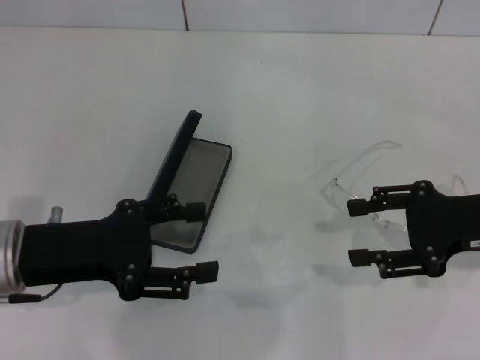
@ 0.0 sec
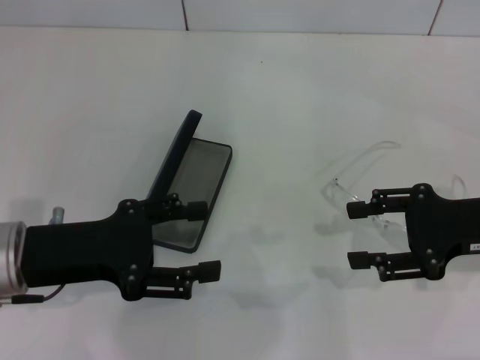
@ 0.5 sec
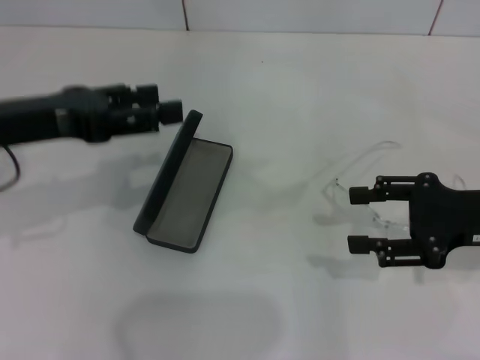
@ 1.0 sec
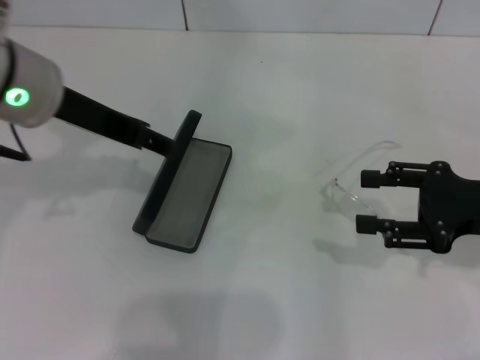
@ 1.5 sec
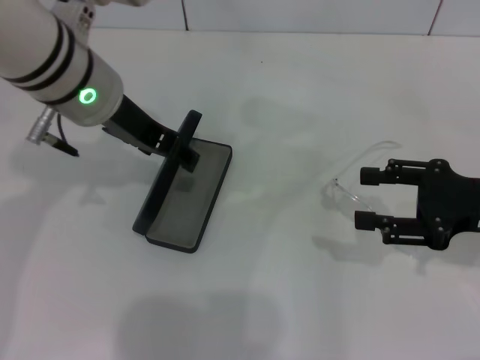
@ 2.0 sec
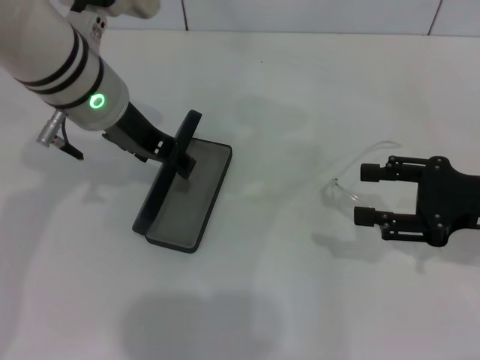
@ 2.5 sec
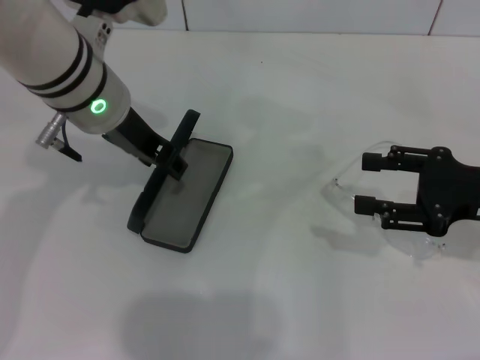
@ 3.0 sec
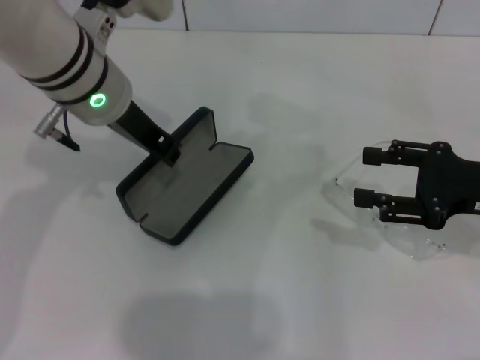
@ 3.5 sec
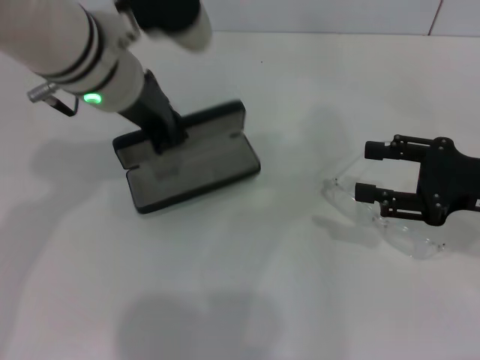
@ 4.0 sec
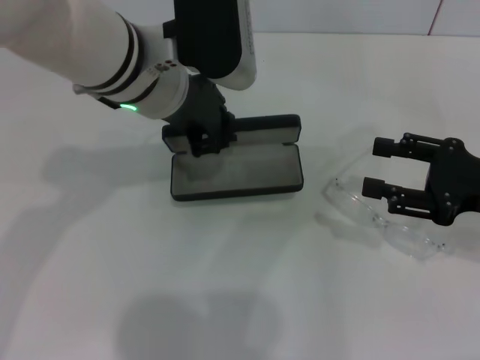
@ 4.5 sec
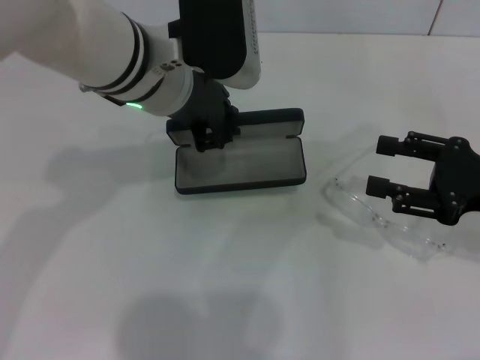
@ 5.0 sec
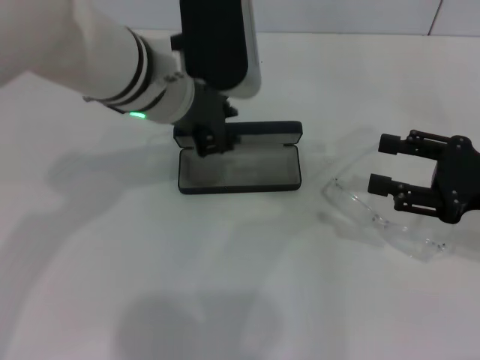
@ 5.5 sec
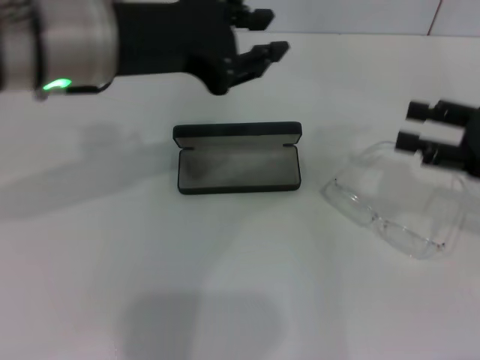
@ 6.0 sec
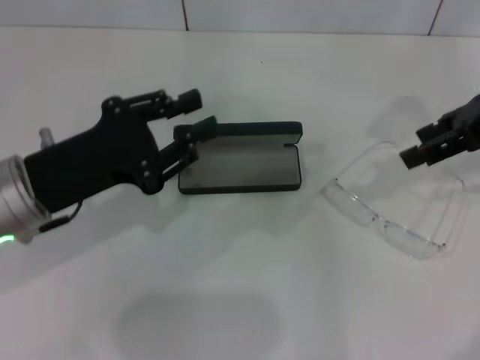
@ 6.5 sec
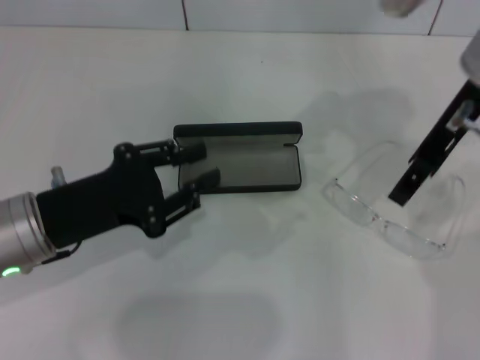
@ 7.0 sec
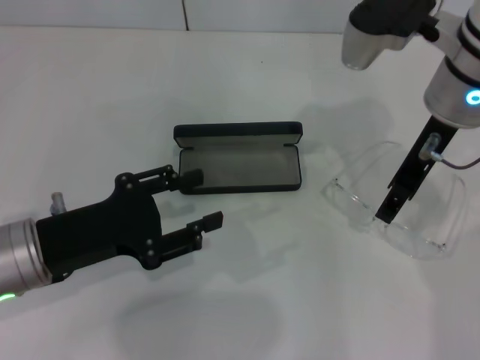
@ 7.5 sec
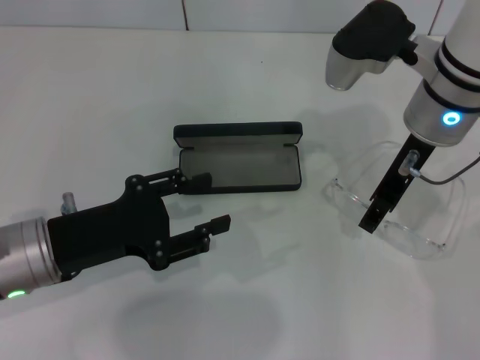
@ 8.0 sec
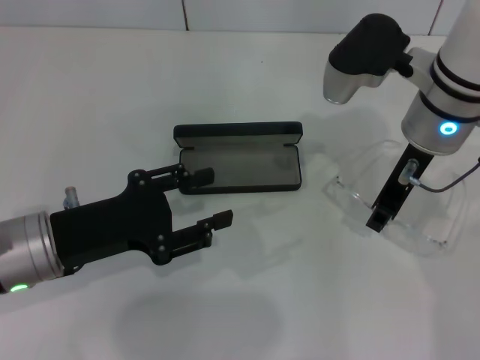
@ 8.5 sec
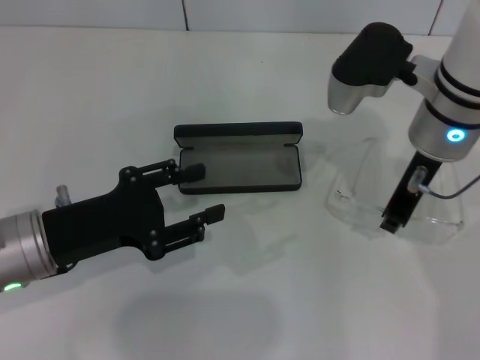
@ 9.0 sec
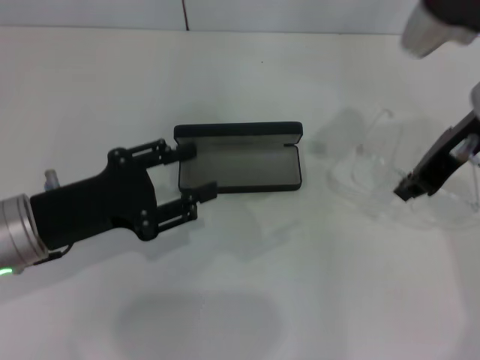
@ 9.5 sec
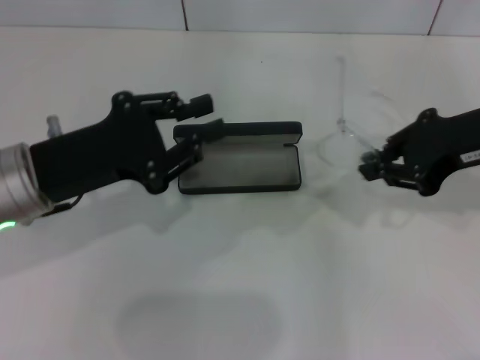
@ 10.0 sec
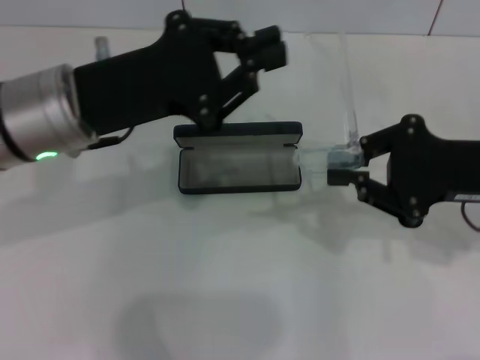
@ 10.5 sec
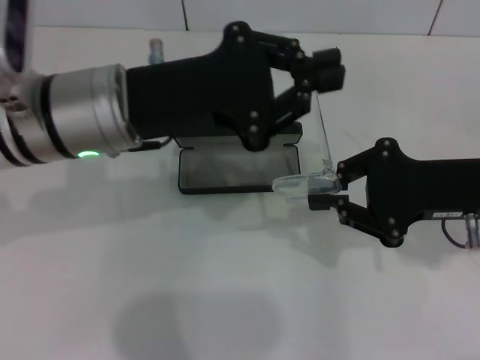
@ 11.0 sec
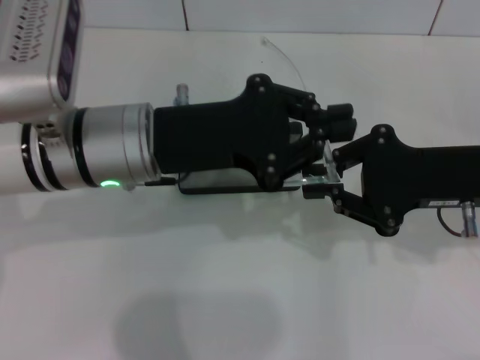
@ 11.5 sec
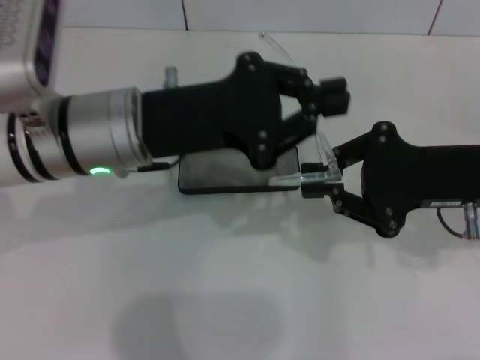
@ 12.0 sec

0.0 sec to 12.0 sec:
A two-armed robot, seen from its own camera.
Step, 0.0 sec to 3.0 sec: Grab the glasses case with your left hand.
Step, 3.5 sec to 5.0 sec: Place the glasses case in the center of the table with your left hand.
Step, 6.0 sec to 8.5 sec: Grab the eyeglass frame with your right hand.
0.0 sec to 2.0 sec: The left gripper shifts approximately 20 cm forward, to the right and upward.
2.0 sec to 4.0 sec: The left gripper closes.
4.0 sec to 6.0 sec: The left gripper moves some 5 cm.
6.0 sec to 8.0 sec: The right gripper goes some 20 cm to the left and forward. Meanwhile the left gripper moves downward, backward and to the left, roughly 20 cm.
8.0 sec to 10.0 sec: The right gripper moves to the right and backward, approximately 10 cm, and closes up. Meanwhile the left gripper changes place by about 5 cm.
10.0 sec to 12.0 sec: The right gripper goes roughly 5 cm downward. Meanwhile the left gripper is displaced to the right by about 10 cm, and closes its fingers.

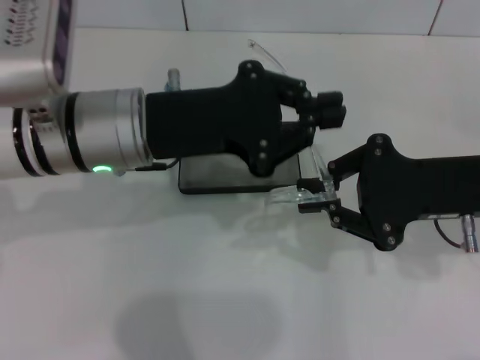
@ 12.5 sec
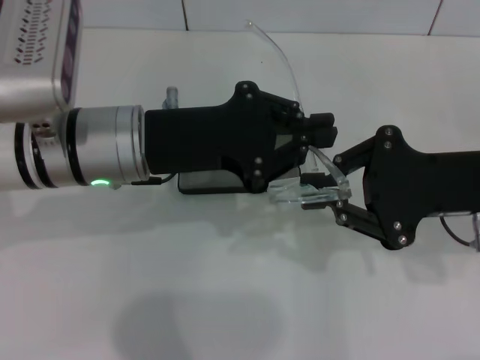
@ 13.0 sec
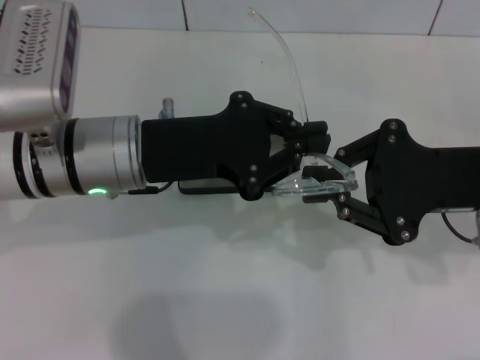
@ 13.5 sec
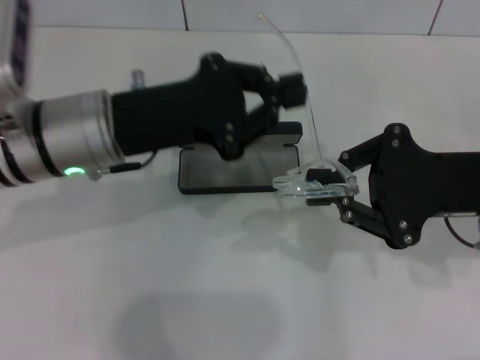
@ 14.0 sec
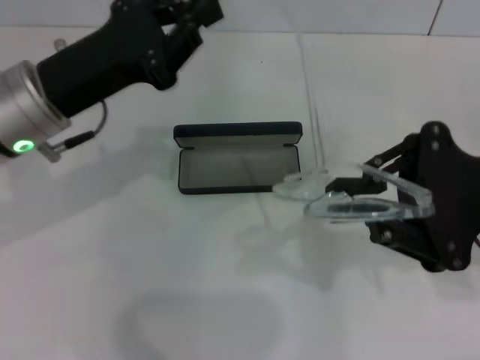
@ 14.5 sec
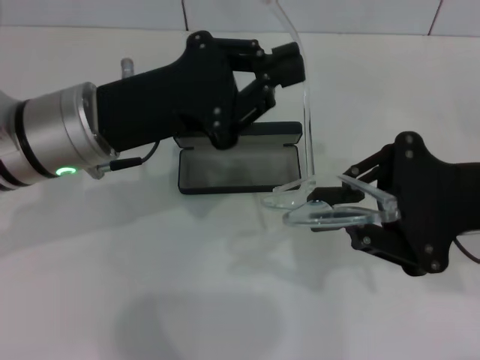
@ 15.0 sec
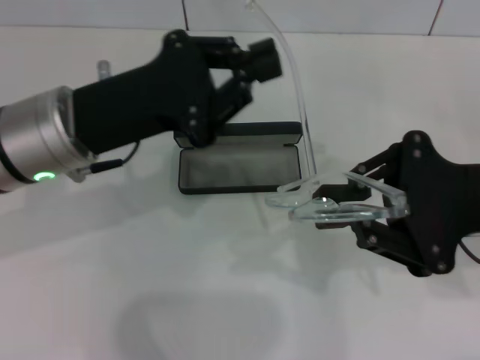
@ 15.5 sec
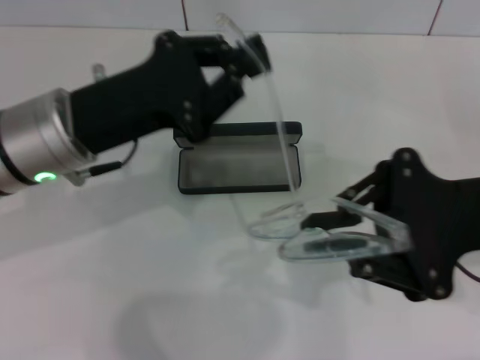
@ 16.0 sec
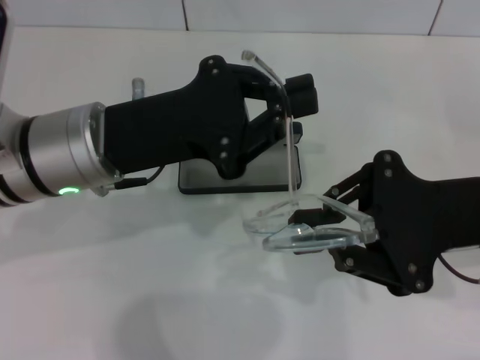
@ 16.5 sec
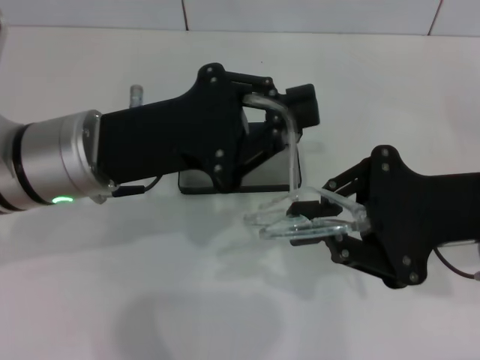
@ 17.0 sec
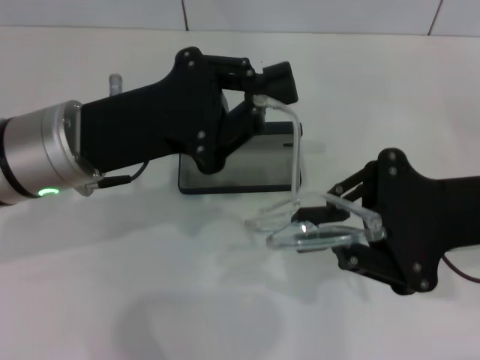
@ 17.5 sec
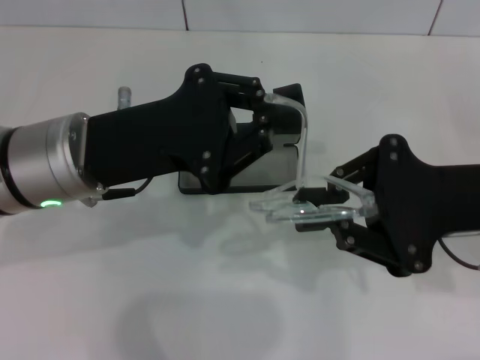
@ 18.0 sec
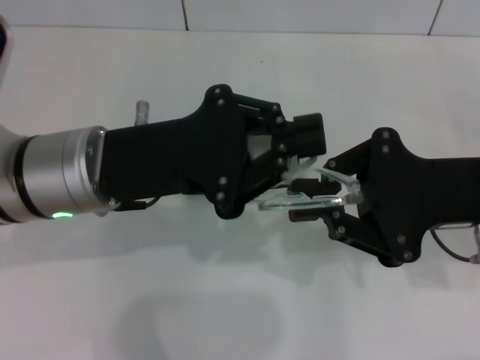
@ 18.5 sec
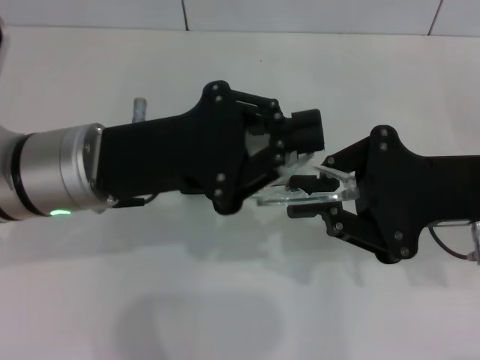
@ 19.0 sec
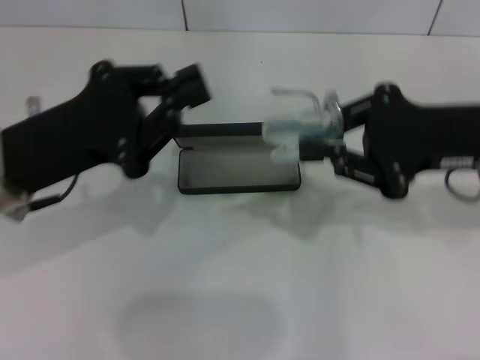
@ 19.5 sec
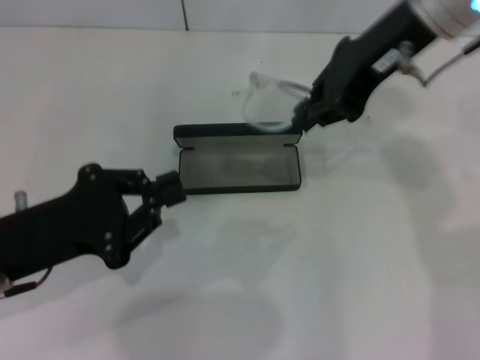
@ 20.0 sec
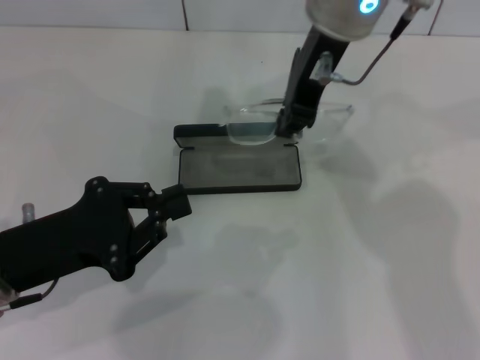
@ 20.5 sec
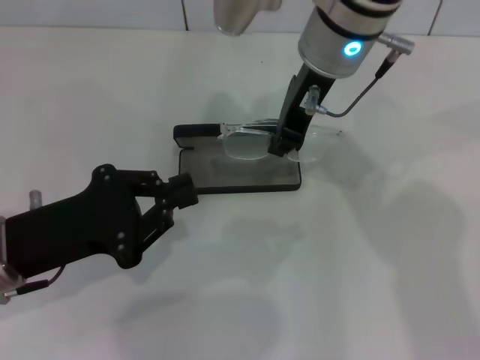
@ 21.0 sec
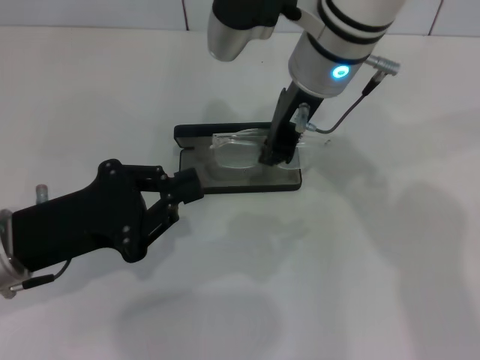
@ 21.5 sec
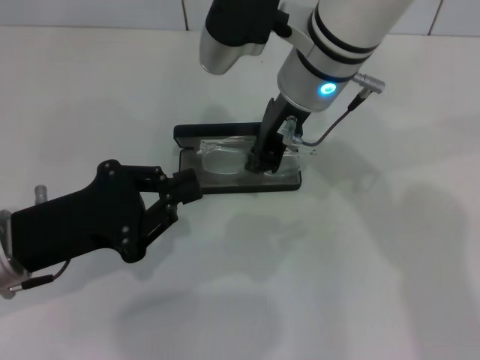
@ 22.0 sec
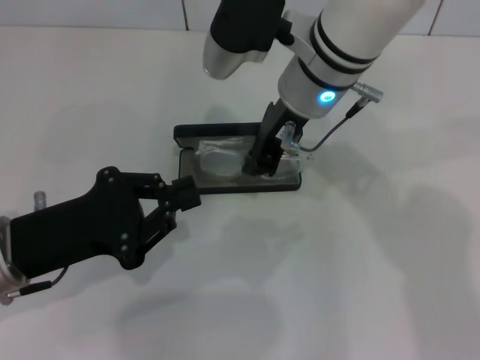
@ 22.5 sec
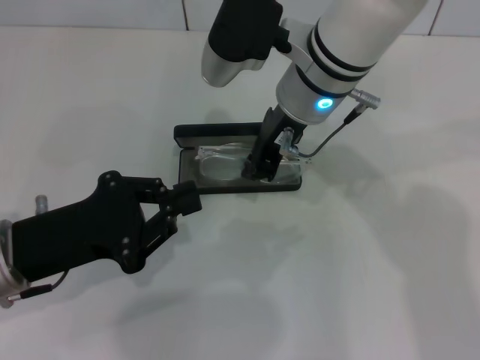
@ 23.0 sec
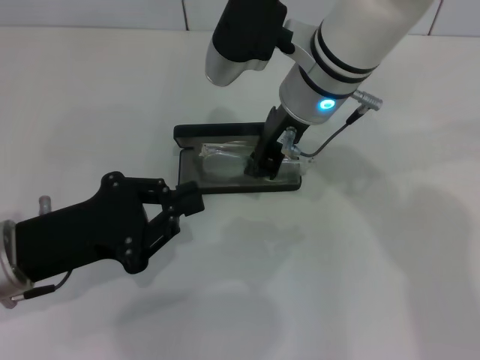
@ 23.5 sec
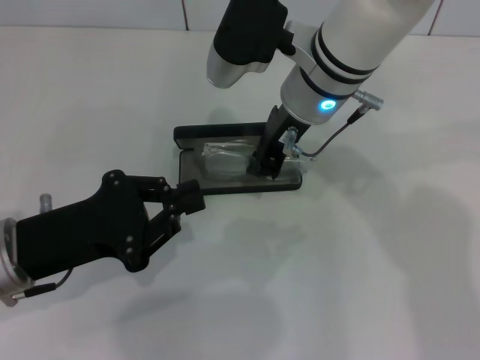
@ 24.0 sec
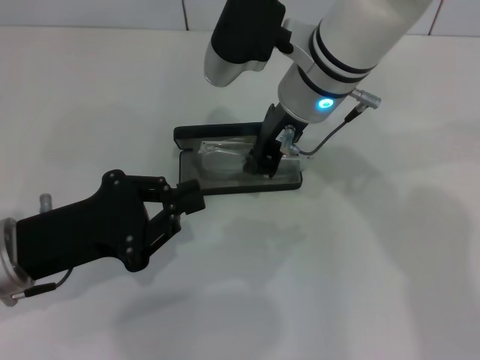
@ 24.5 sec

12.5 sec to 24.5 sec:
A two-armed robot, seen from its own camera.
Step, 12.5 sec to 18.5 sec: Fold the frame with your left hand.
12.5 sec to 14.5 sec: The left gripper travels to the left by approximately 5 cm.
14.5 sec to 16.5 sec: The left gripper moves approximately 5 cm.
18.5 sec to 20.5 sec: The left gripper travels to the left, backward and downward by about 10 cm. The right gripper goes some 25 cm to the left, forward and upward.
20.5 sec to 22.5 sec: The right gripper shifts roughly 10 cm downward.
22.5 sec to 24.5 sec: Both grippers stay put.

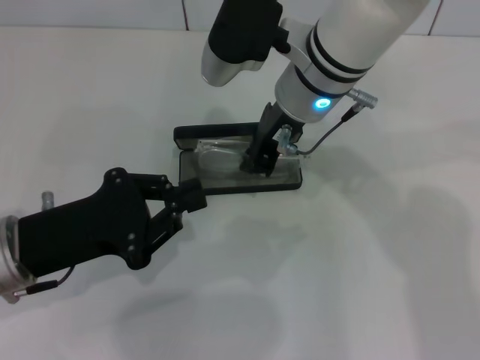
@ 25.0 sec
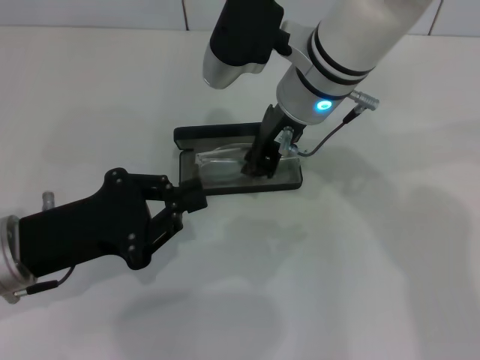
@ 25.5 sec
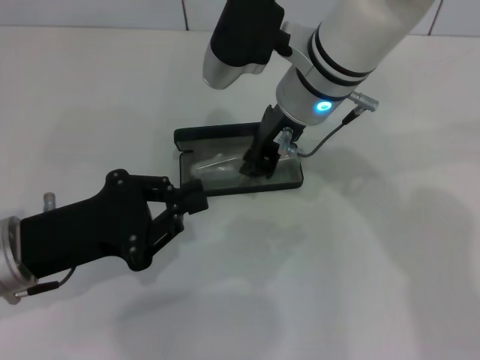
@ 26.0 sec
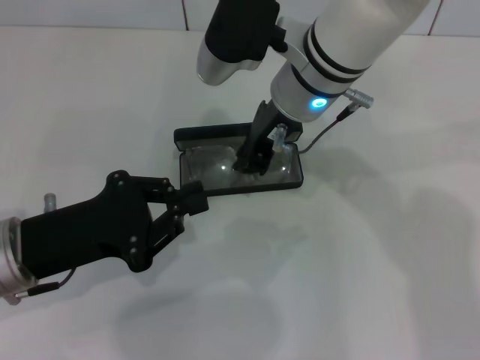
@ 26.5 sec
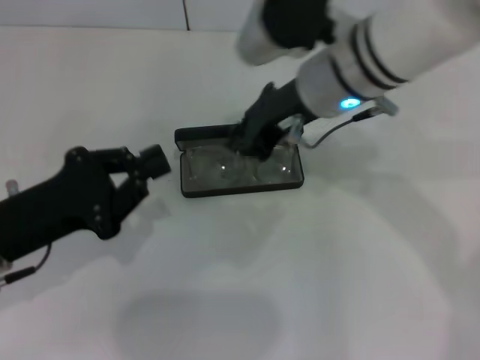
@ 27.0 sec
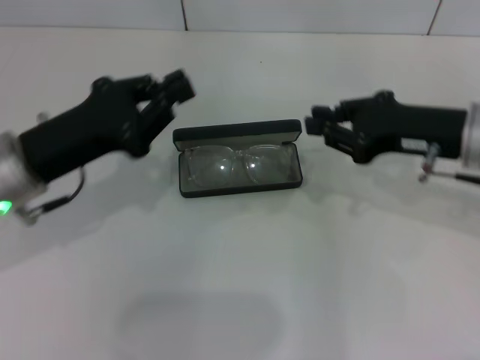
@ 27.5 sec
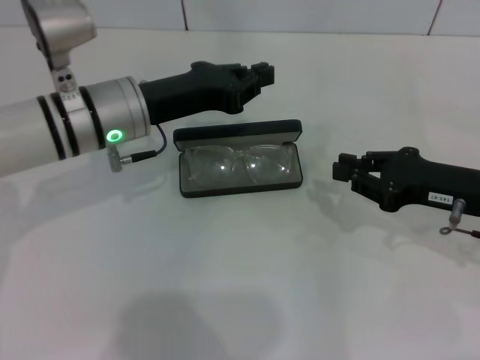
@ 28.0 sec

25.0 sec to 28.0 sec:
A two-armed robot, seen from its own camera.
25.0 sec to 26.5 sec: The two grippers keep their place.
26.5 sec to 28.0 sec: The right gripper goes roughly 25 cm to the right, downward and backward. The left gripper is displaced forward and to the right by some 15 cm.
